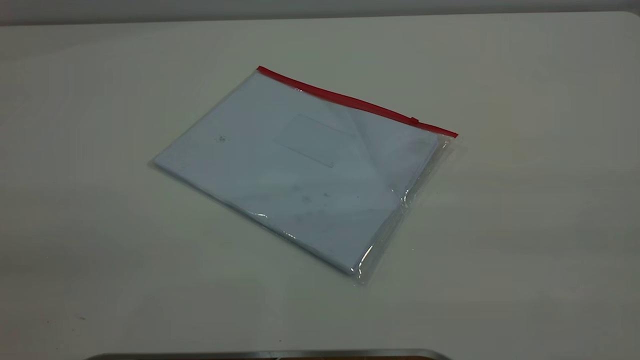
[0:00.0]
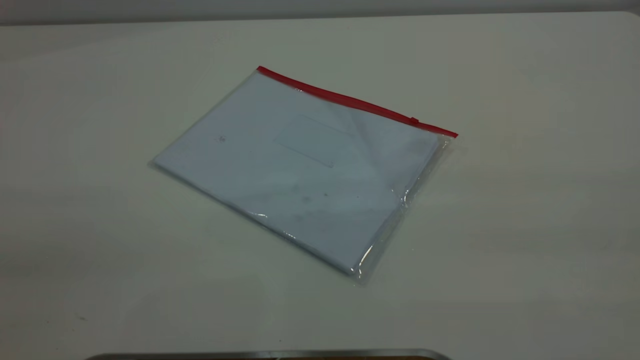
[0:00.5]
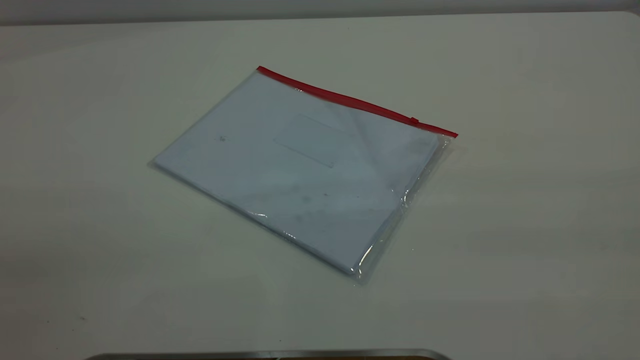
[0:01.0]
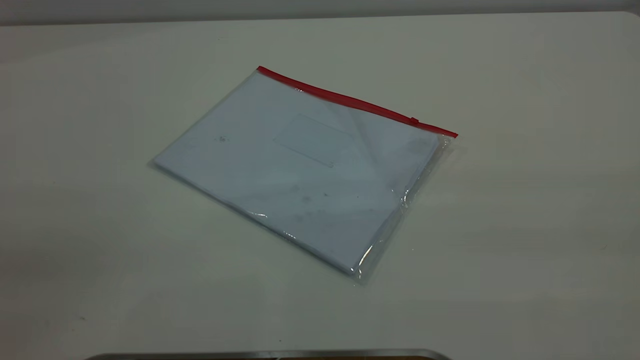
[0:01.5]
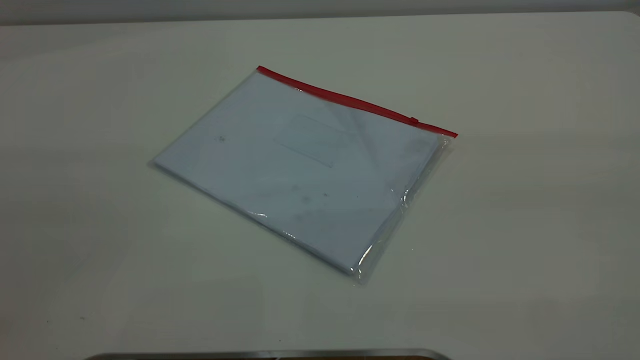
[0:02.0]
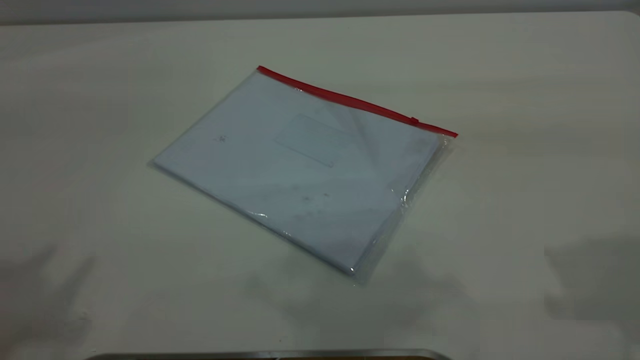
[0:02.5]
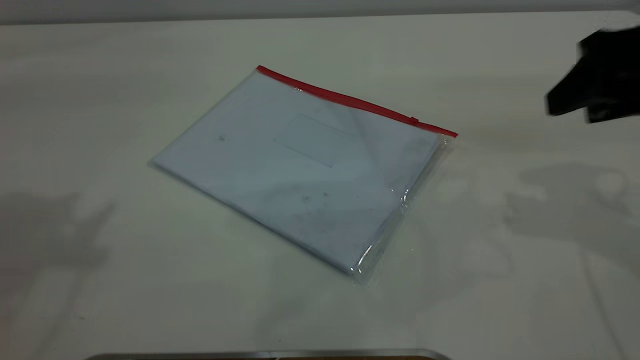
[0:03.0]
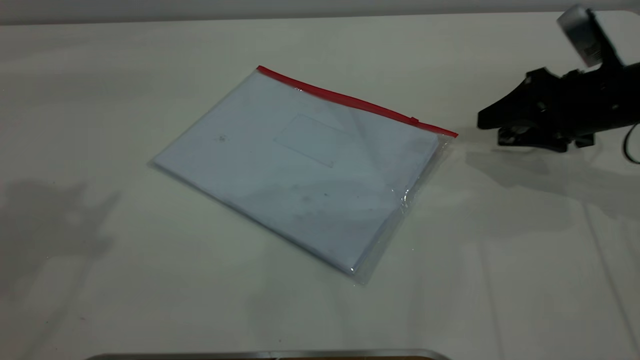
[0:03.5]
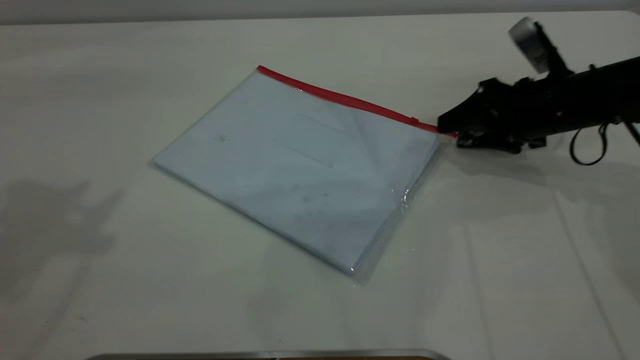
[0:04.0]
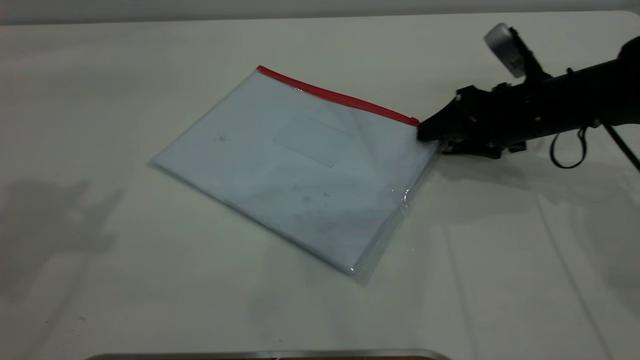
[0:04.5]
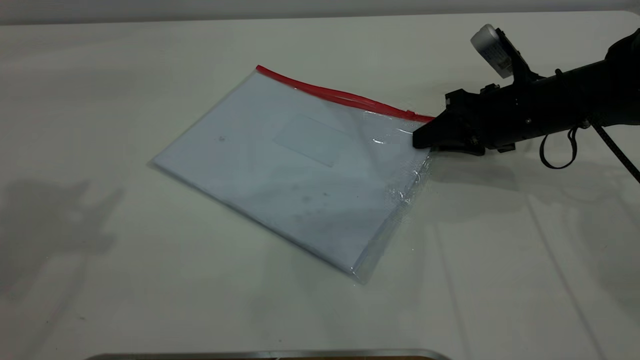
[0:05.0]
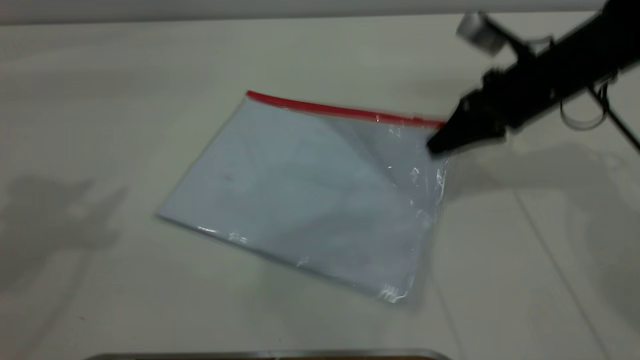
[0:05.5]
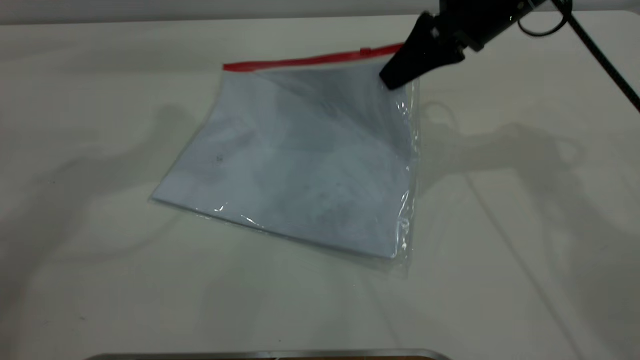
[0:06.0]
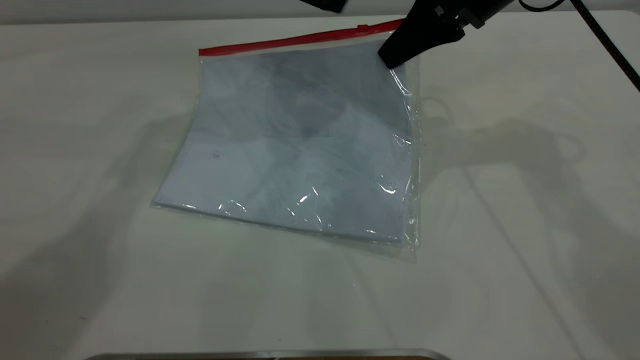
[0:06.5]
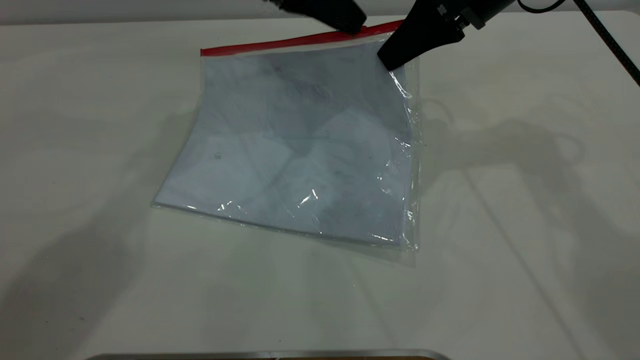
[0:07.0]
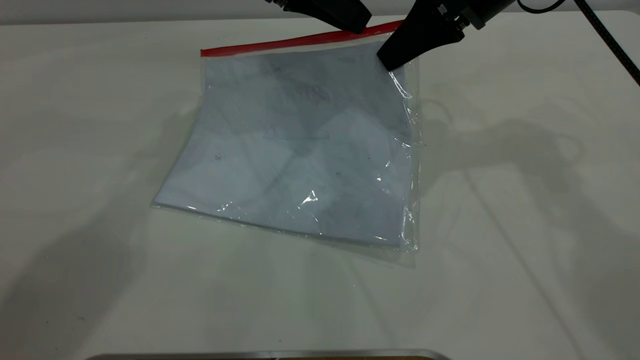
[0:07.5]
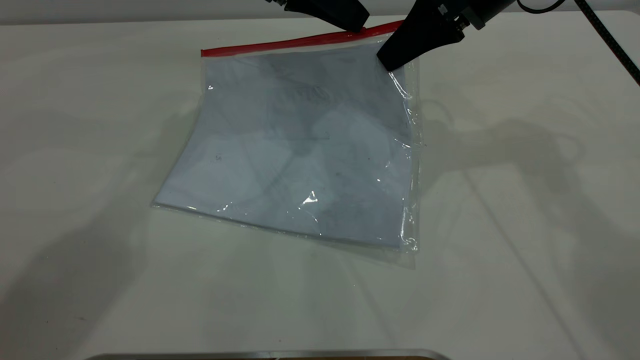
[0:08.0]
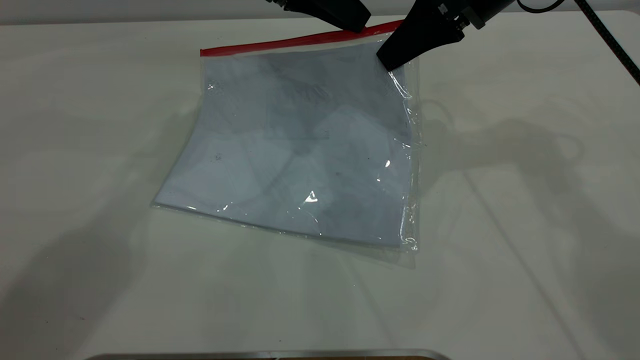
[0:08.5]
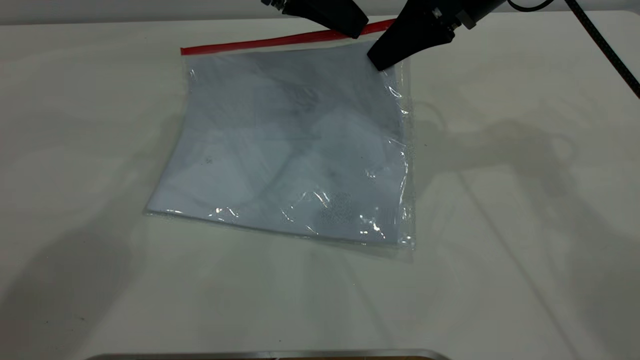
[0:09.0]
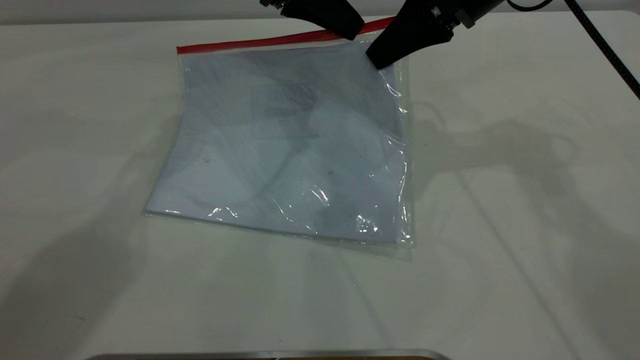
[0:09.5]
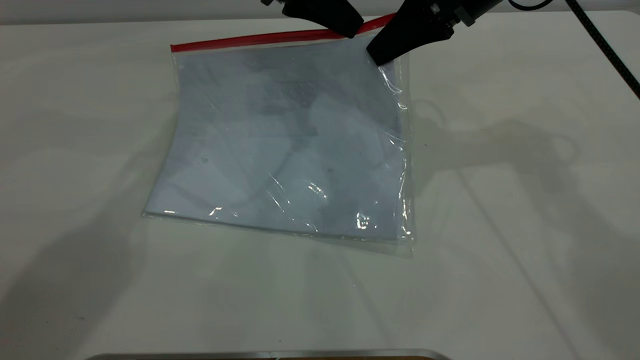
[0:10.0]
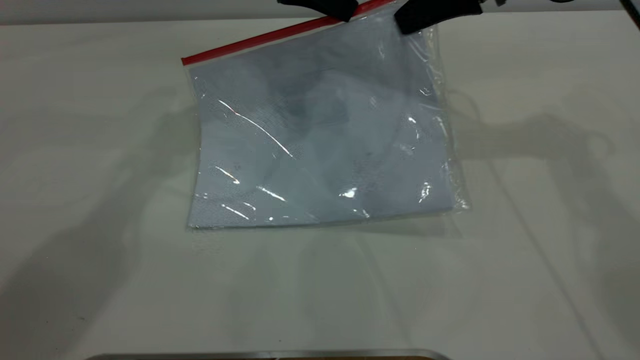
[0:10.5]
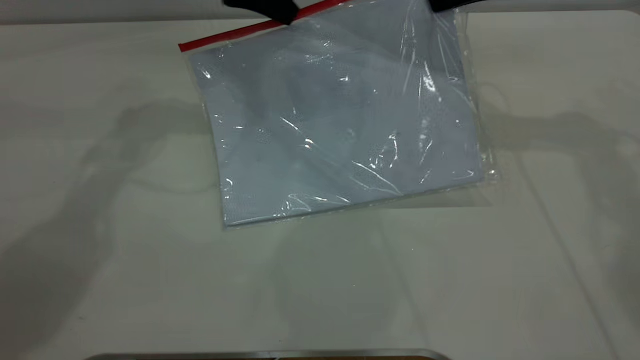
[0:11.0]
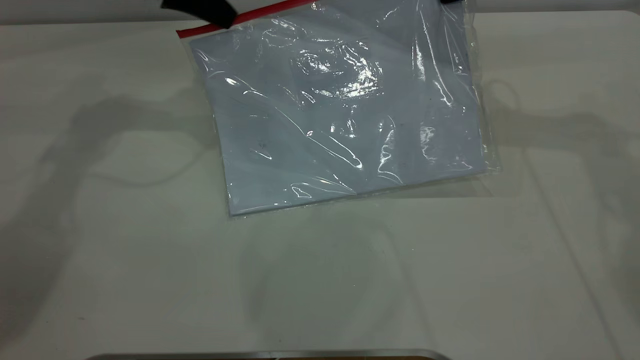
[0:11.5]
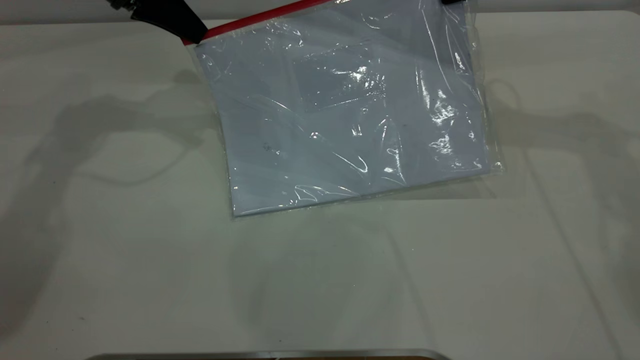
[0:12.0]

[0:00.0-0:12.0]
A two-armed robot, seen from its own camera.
Step, 0:00.0 to 0:06.0: Pick up the transparent plastic bag with the right gripper.
0:02.0 to 0:04.0: The right gripper goes about 50 cm downward and forward.
0:04.0 to 0:06.0: The right gripper travels upward and to the left by approximately 15 cm, and closes its fingers. Meanwhile the left gripper heads forward, to the right and downward, covering some 20 cm.
0:06.0 to 0:08.0: The left gripper shifts about 15 cm to the right, downward and forward, and closes up.
0:08.0 to 0:10.0: The left gripper closes.
0:10.0 to 0:12.0: The left gripper travels to the left by some 15 cm. Meanwhile the right gripper moves to the right, about 10 cm.

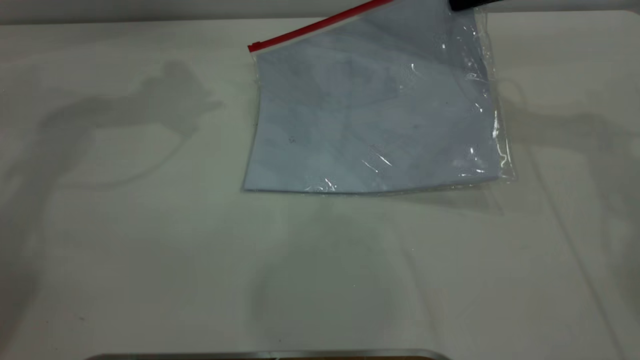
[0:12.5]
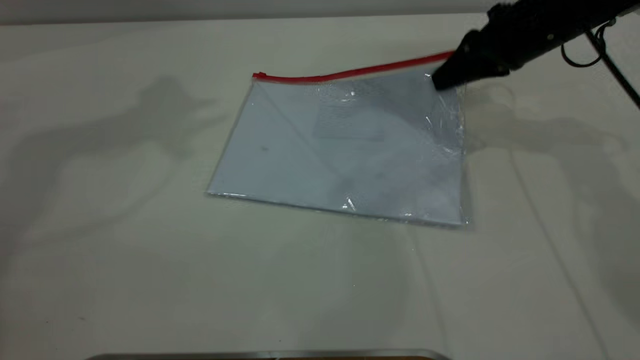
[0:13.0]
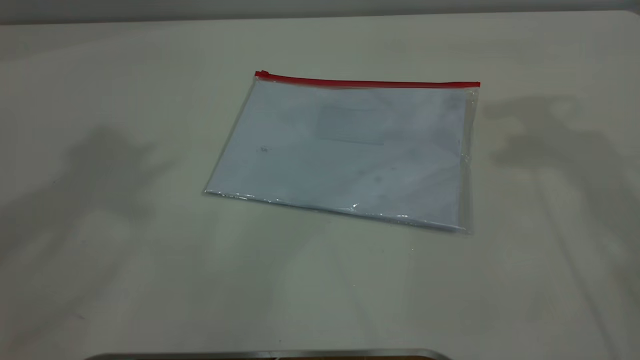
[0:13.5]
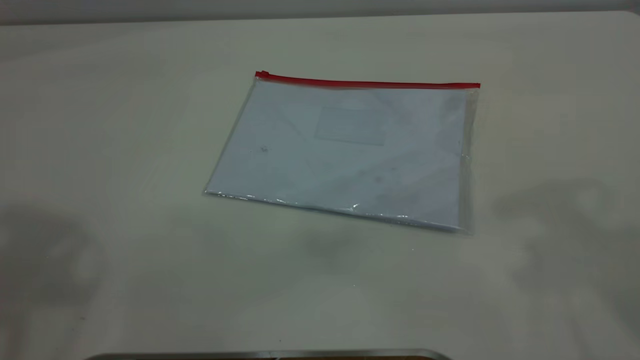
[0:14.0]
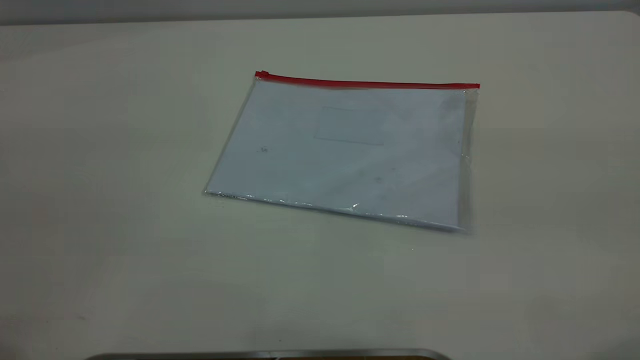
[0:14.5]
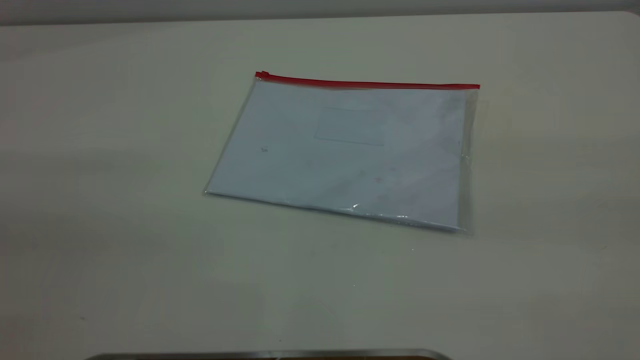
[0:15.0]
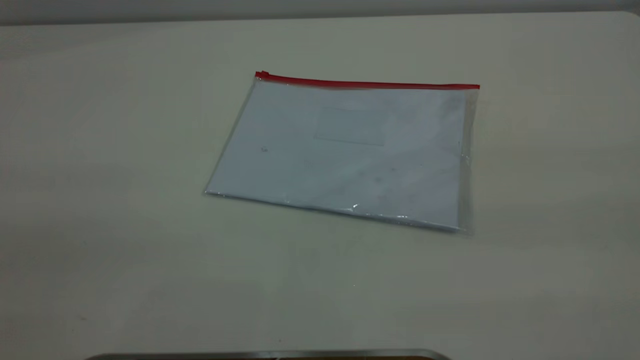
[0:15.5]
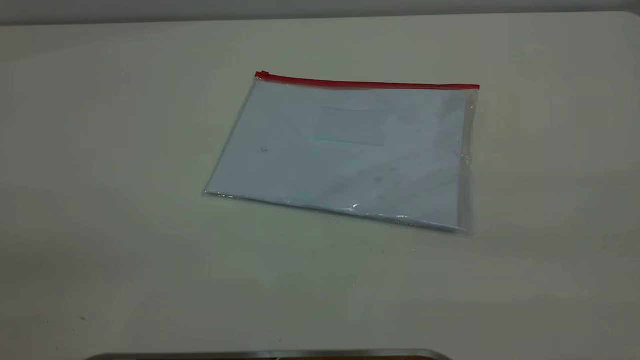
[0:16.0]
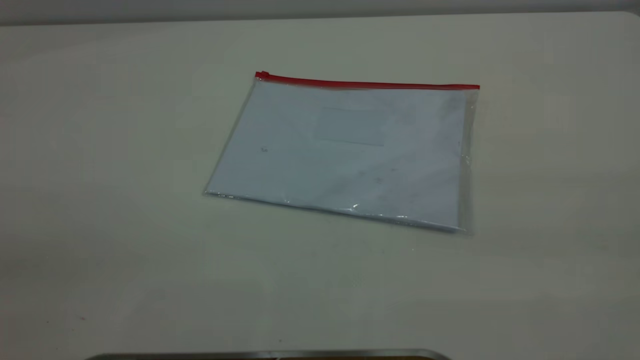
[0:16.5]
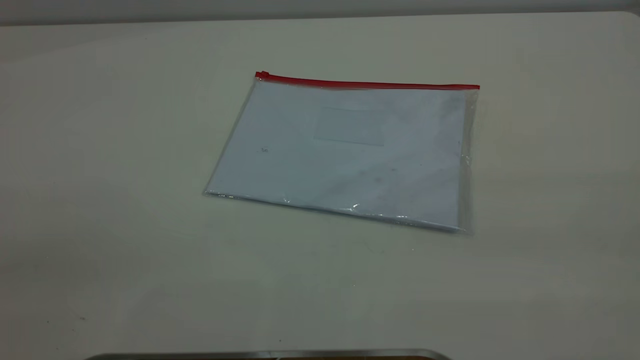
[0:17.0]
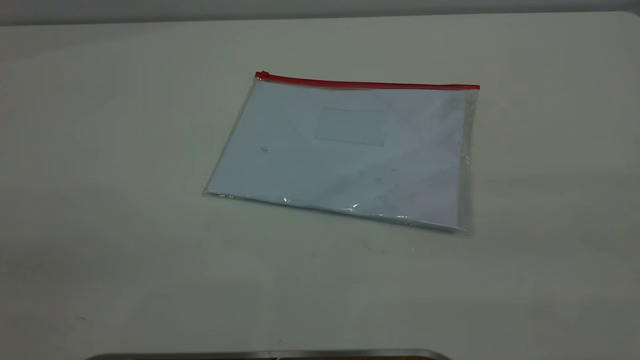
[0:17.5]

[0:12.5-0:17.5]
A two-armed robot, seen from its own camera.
Step, 0:12.5 to 0:13.0: Place the transparent plastic bag.
0:12.5 to 0:15.0: Both grippers move backward, about 40 cm. The right gripper opens its fingers.
